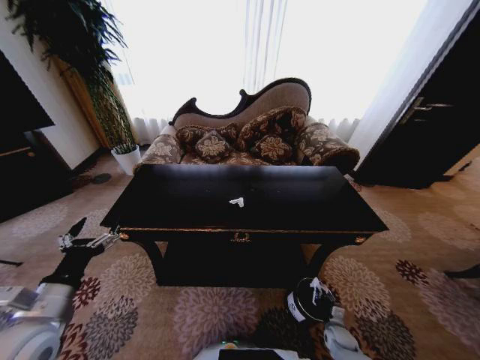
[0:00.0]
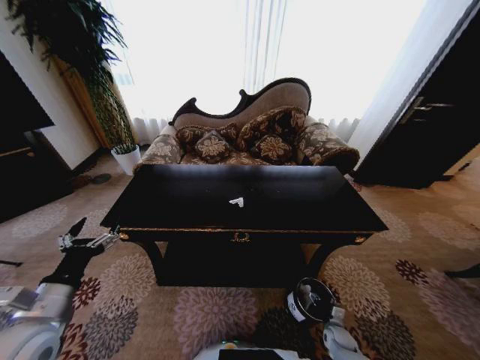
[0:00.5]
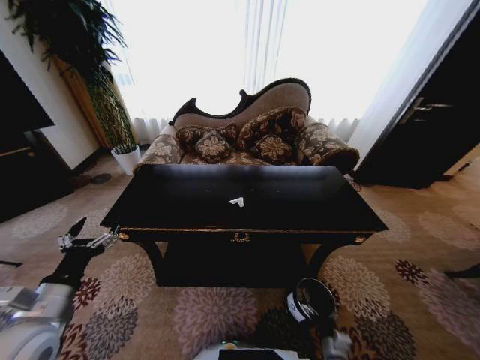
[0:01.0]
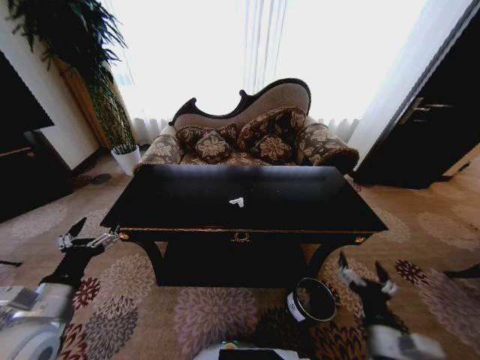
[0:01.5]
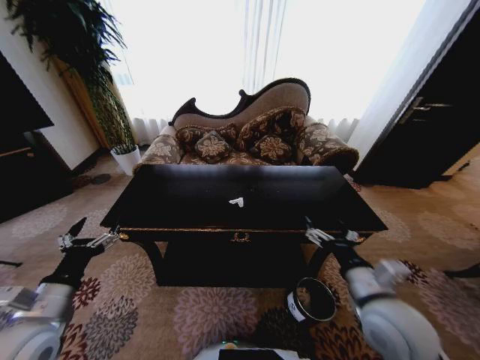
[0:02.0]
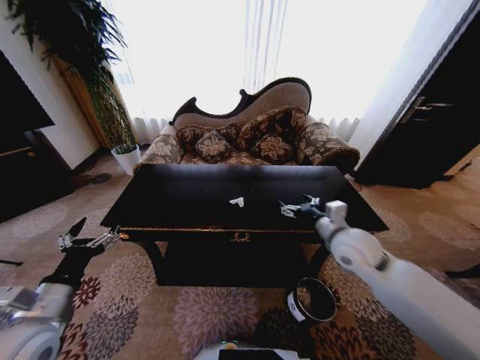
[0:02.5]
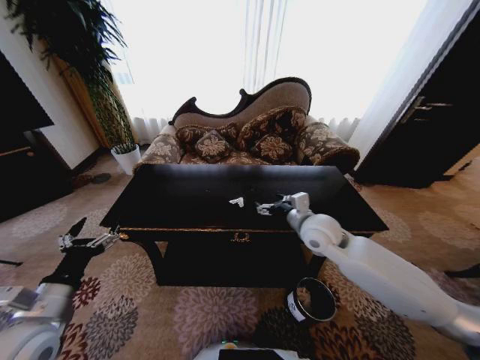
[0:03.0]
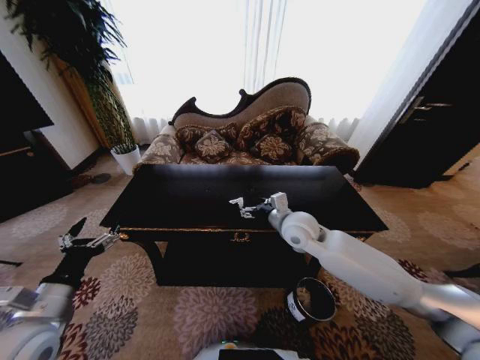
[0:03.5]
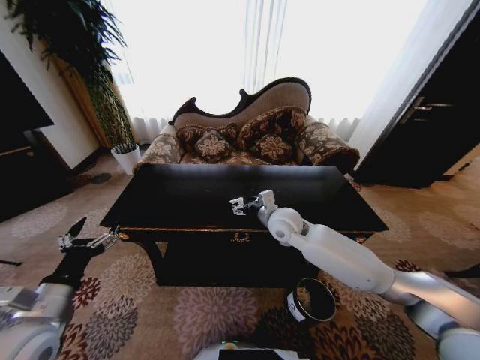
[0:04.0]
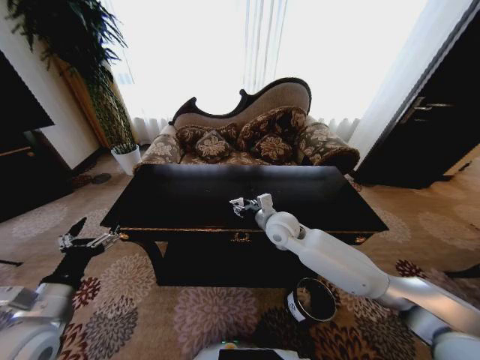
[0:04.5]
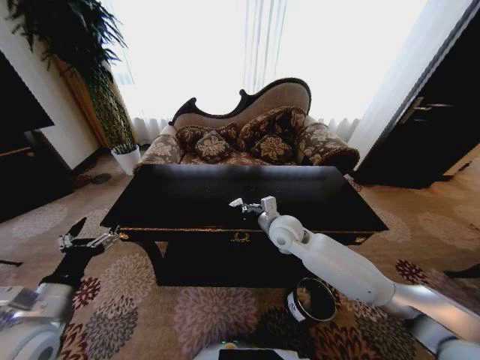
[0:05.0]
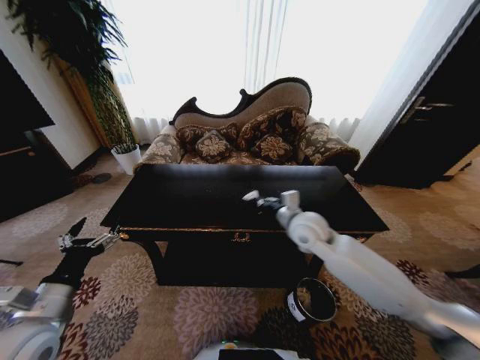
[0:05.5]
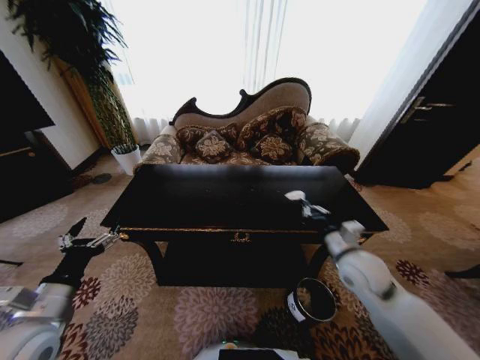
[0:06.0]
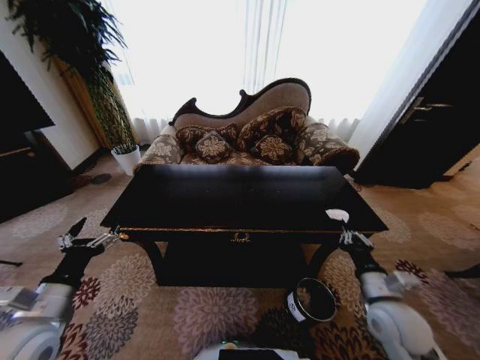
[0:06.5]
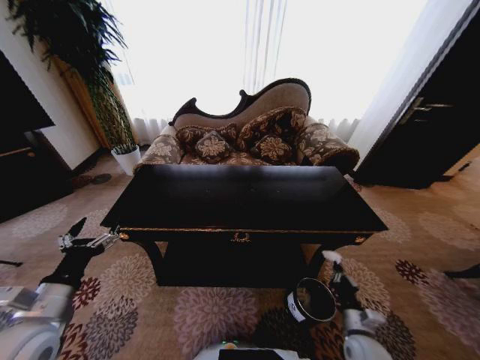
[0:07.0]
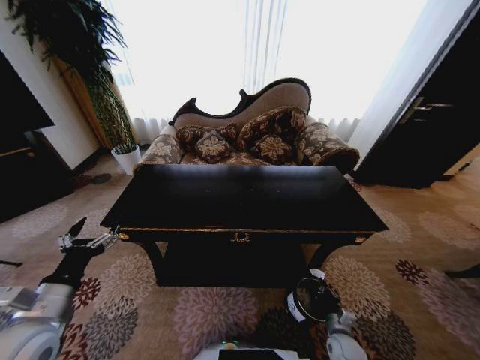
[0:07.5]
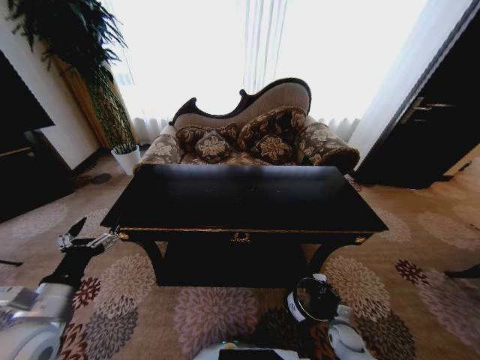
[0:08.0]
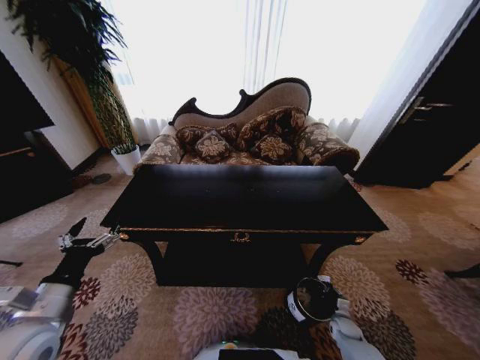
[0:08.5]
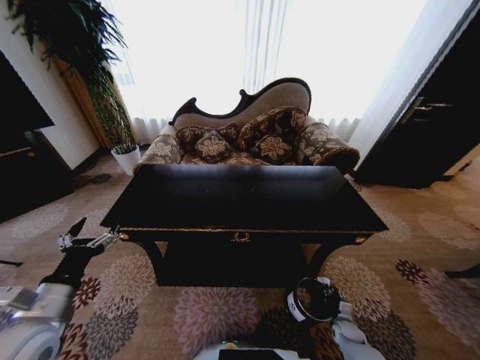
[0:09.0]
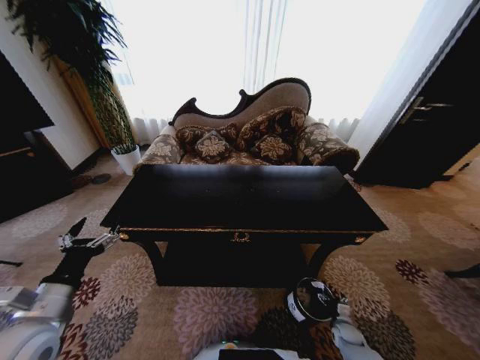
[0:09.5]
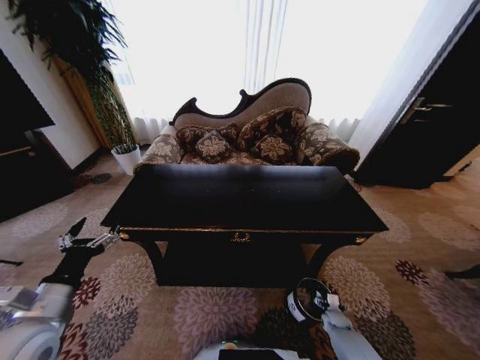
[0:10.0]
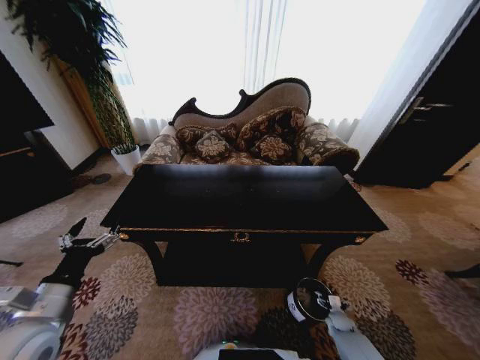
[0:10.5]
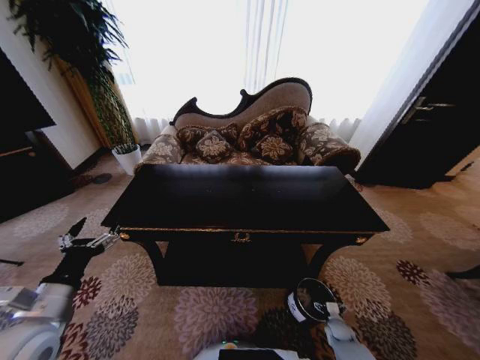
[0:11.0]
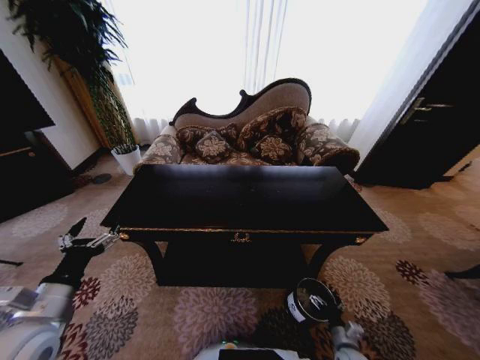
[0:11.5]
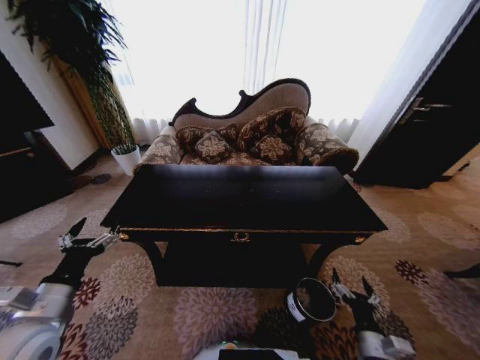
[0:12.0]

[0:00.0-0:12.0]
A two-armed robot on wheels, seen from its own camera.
Task of the whole recording: Move to the front of the table and place the trash on the table into the trash bin.
0:00.0 to 0:02.0: The right gripper heads upward, covering approximately 40 cm, and opens its fingers.
0:02.0 to 0:04.0: The right gripper heads forward and to the left, covering roughly 30 cm.
0:04.0 to 0:06.0: The right gripper travels to the right and backward by about 20 cm, and closes.
0:06.0 to 0:08.0: The right gripper shifts approximately 35 cm downward.
0:08.0 to 0:10.0: The right gripper goes approximately 5 cm forward, and opens its fingers.
0:10.0 to 0:12.0: The right gripper moves upward and backward, some 25 cm.

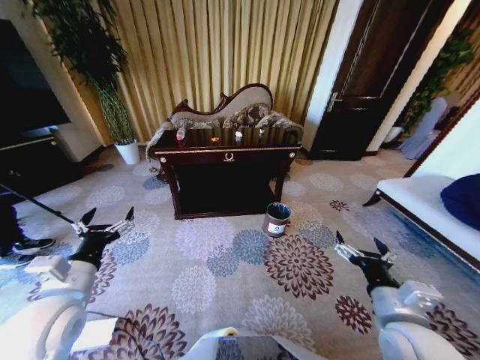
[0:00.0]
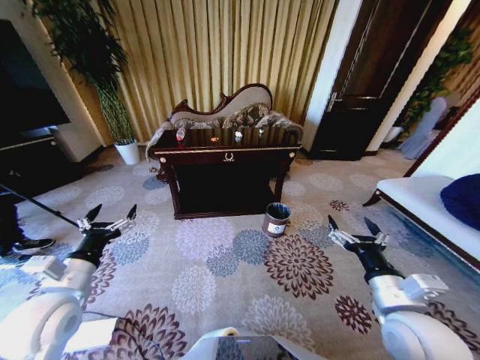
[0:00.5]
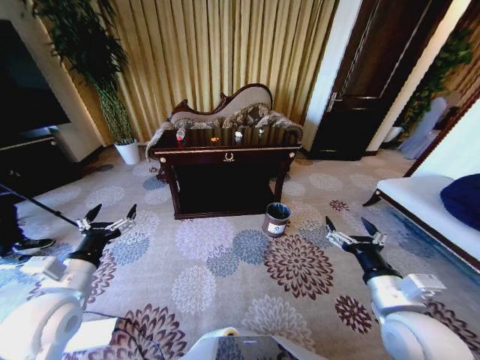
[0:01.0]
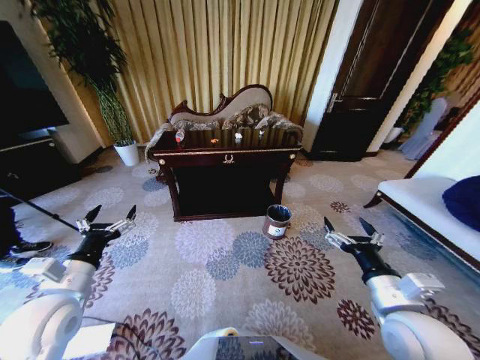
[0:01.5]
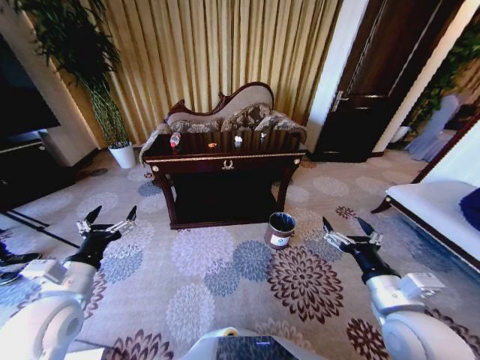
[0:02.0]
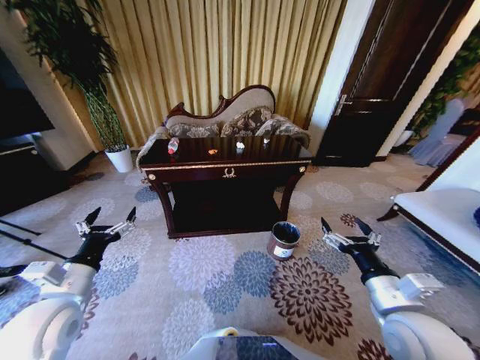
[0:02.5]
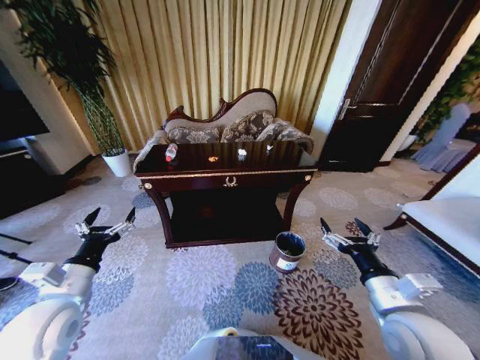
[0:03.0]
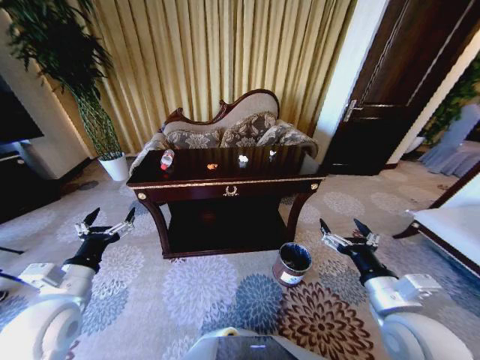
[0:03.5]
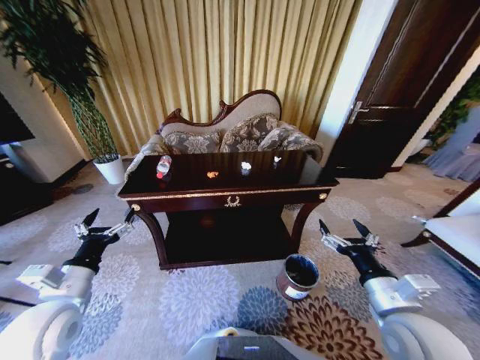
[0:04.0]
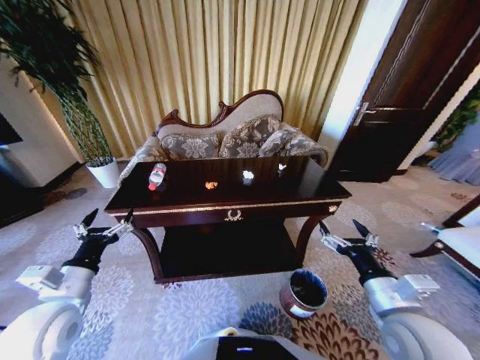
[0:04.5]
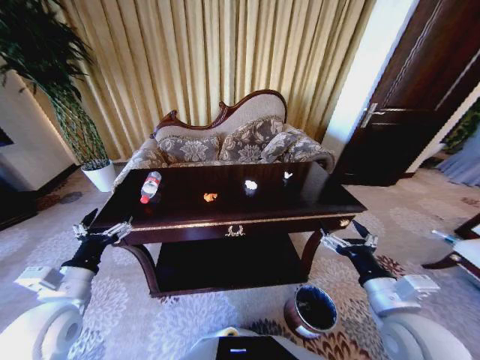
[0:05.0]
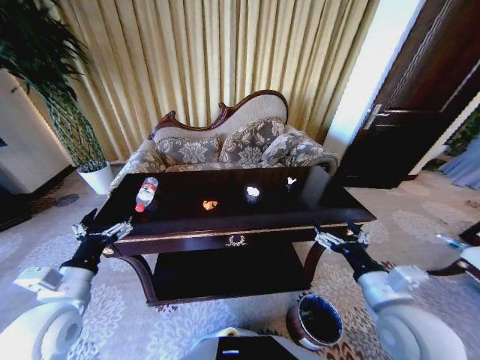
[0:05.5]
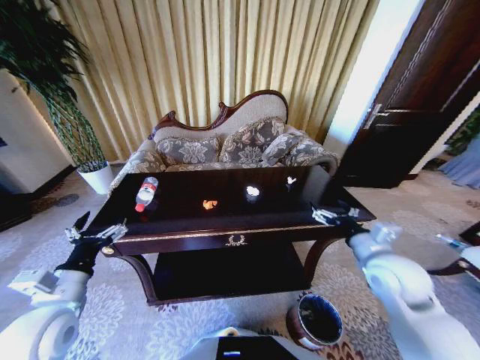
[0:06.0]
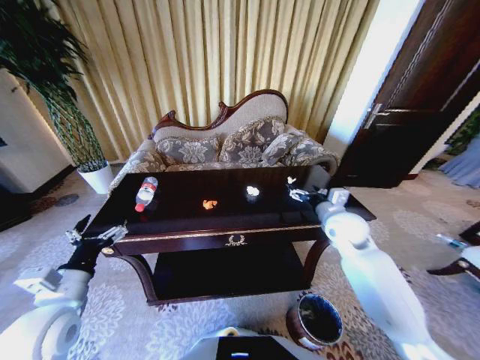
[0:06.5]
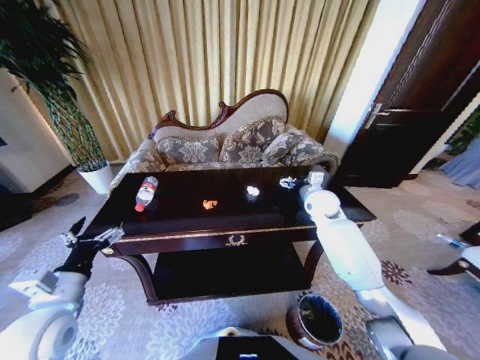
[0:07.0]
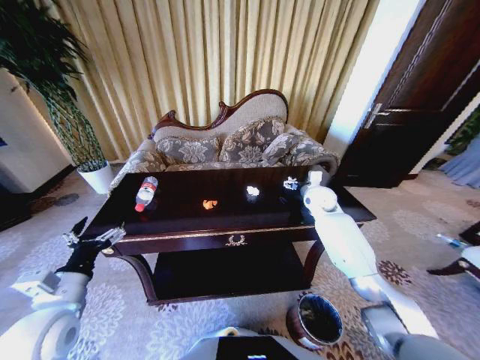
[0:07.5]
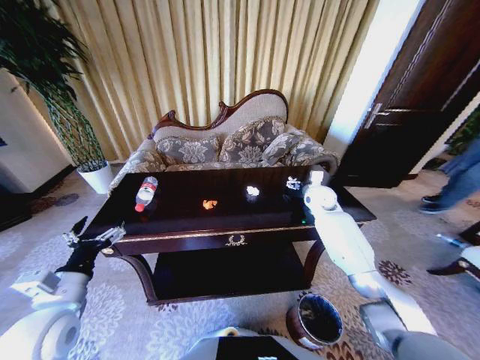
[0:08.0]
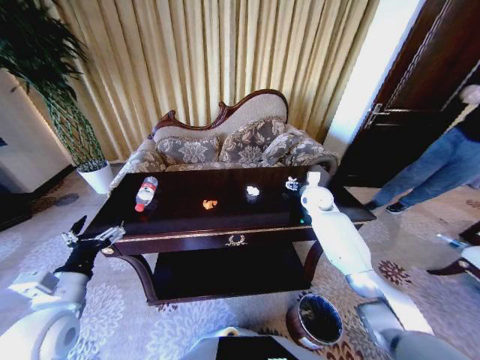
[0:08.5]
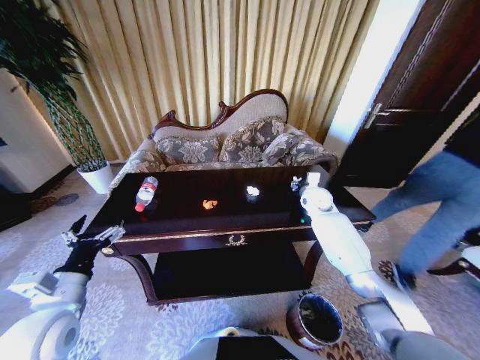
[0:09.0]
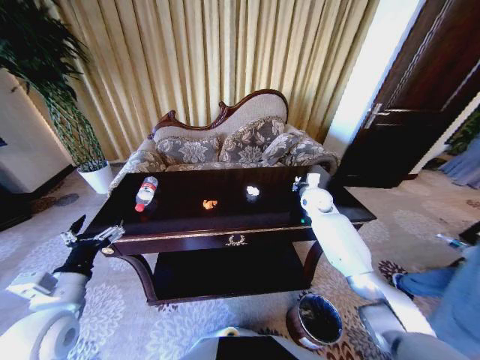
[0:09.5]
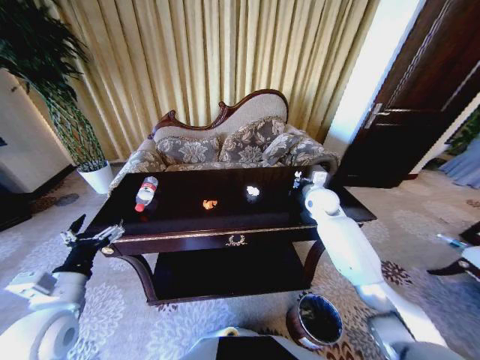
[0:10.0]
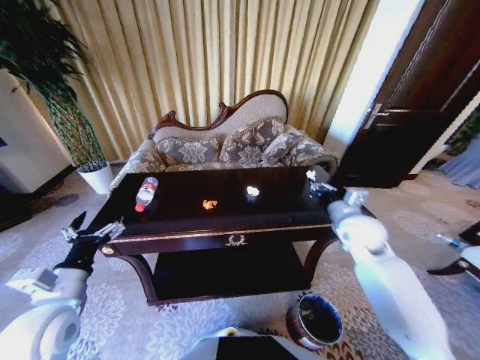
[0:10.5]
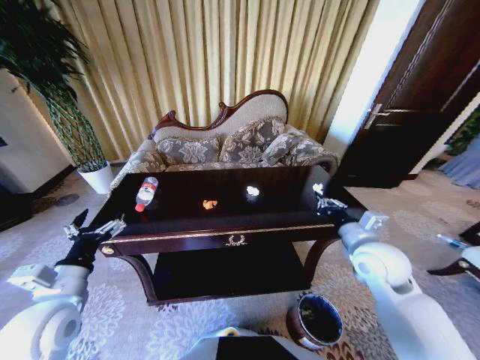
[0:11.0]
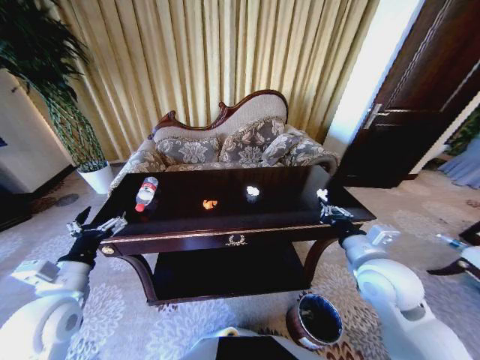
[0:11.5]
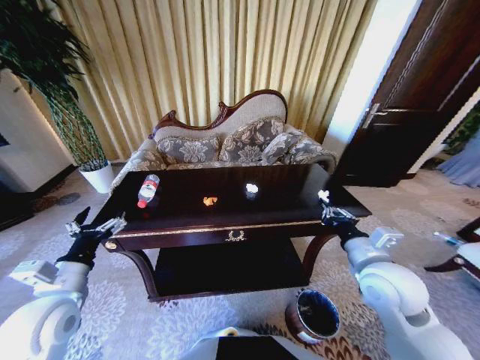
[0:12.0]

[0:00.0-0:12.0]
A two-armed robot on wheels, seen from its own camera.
Task of the whole recording: Move to the front of the table and place the trash on the table into the trash bin.
0:04.0 to 0:06.0: The right gripper moves forward, approximately 10 cm.
0:06.0 to 0:08.0: The right gripper shifts about 25 cm forward.
0:08.0 to 0:10.0: The right gripper closes its fingers.
0:10.0 to 0:12.0: The right gripper is displaced backward by roughly 25 cm.

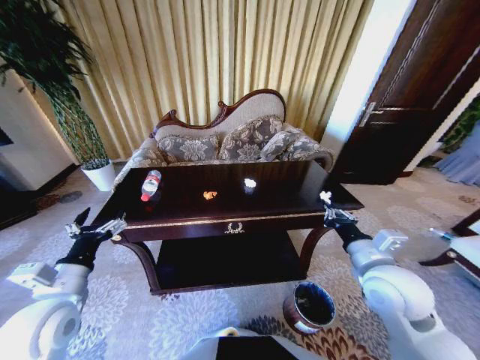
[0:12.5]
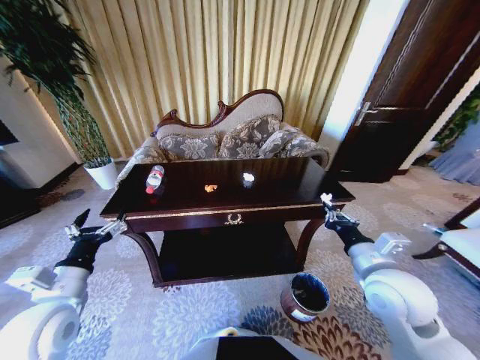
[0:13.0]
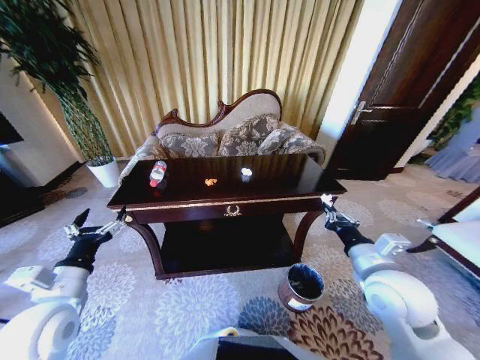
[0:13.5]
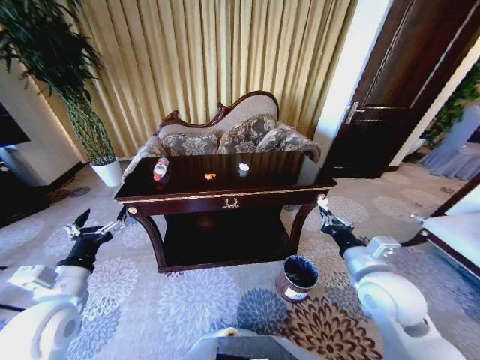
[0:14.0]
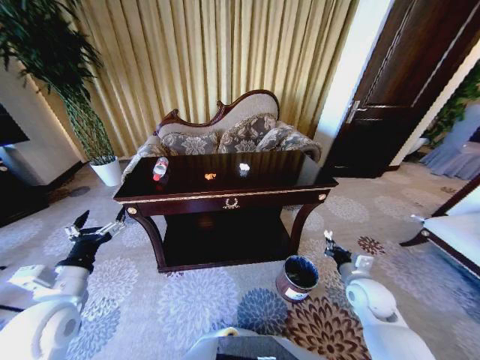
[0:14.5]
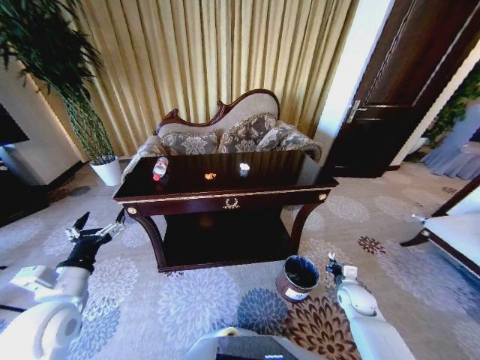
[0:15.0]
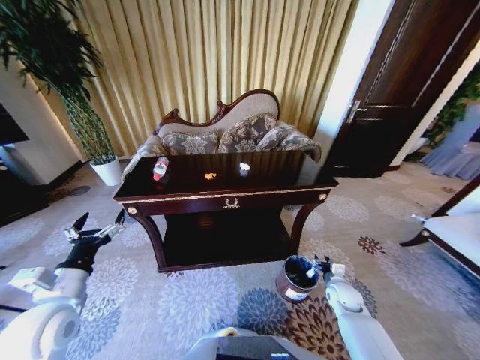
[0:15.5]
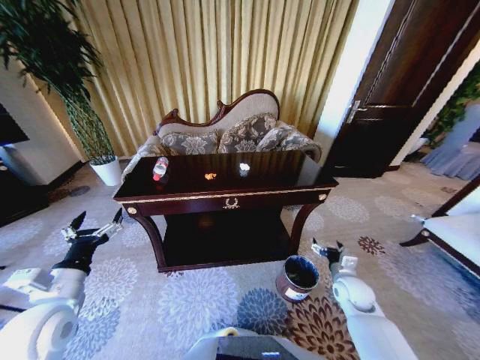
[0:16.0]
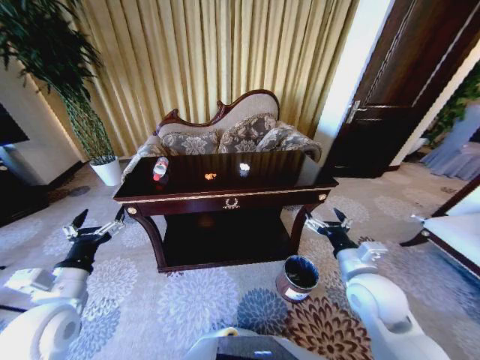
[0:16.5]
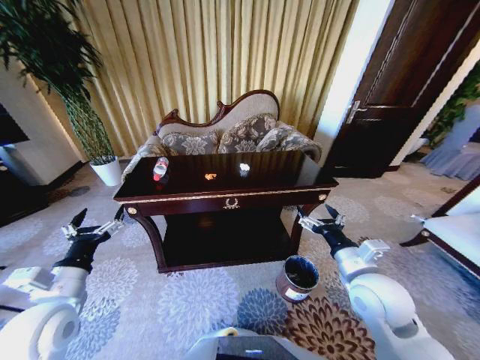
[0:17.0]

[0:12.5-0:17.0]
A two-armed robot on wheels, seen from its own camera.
Task of the whole recording: Move to the front of the table and place the trash on the table into the trash bin.
0:12.5 to 0:14.5: The right gripper shifts some 15 cm downward and to the right.
0:14.5 to 0:17.0: The right gripper travels upward and to the left by approximately 15 cm, and opens up.
